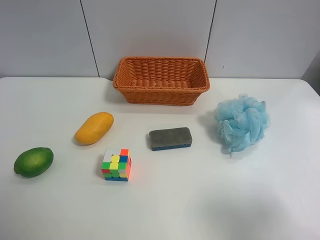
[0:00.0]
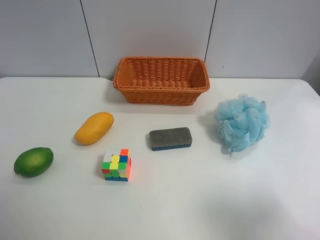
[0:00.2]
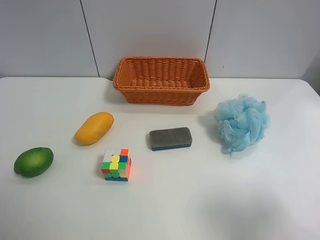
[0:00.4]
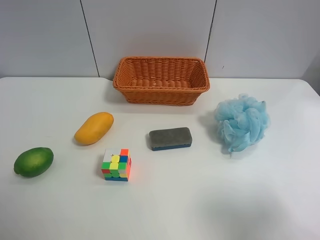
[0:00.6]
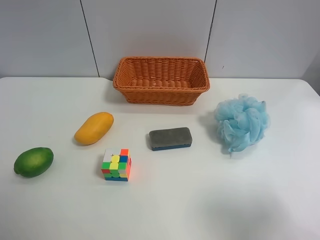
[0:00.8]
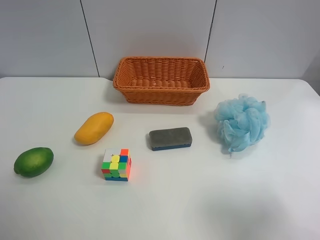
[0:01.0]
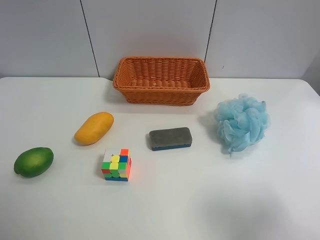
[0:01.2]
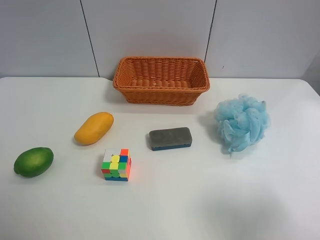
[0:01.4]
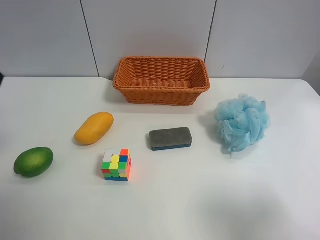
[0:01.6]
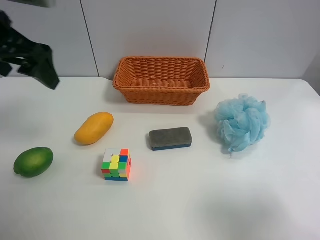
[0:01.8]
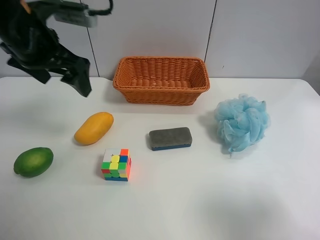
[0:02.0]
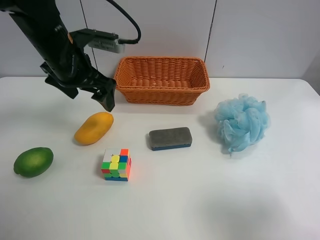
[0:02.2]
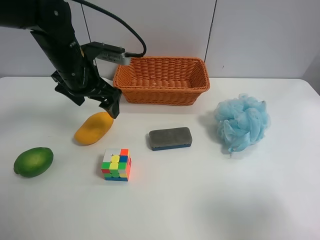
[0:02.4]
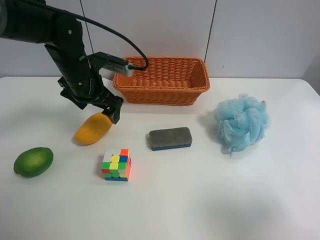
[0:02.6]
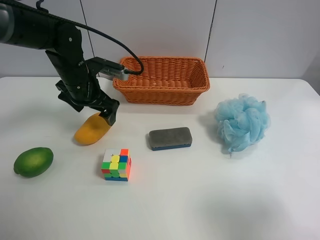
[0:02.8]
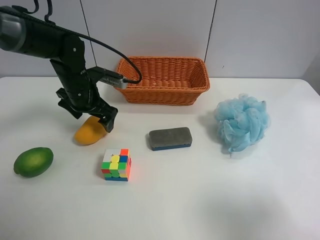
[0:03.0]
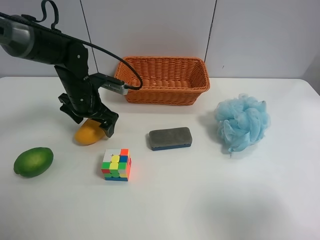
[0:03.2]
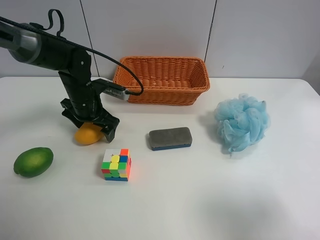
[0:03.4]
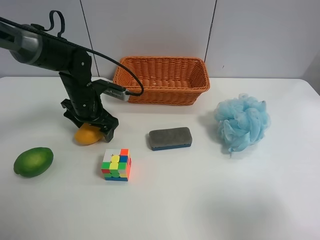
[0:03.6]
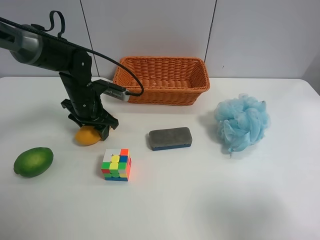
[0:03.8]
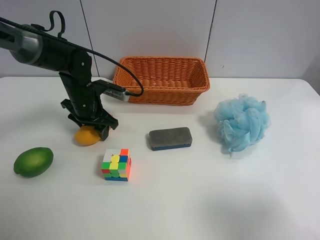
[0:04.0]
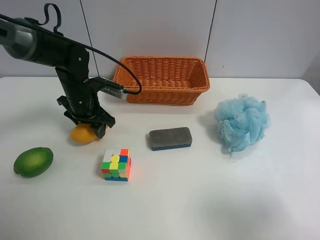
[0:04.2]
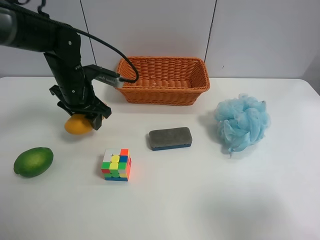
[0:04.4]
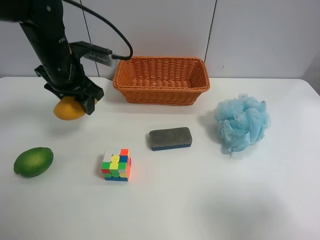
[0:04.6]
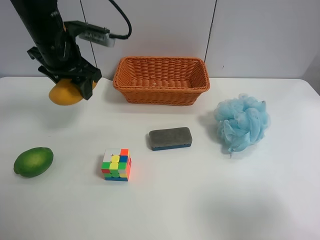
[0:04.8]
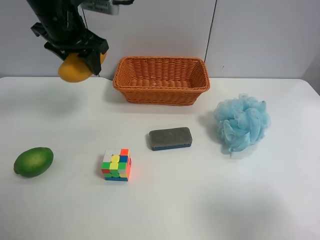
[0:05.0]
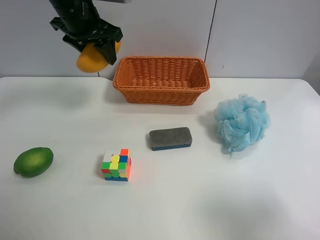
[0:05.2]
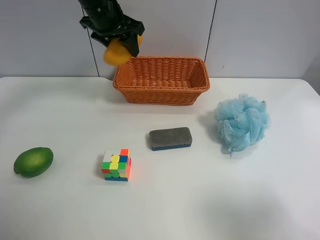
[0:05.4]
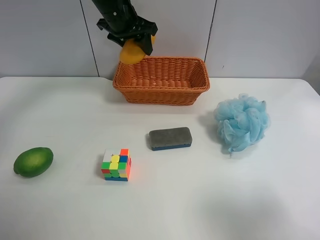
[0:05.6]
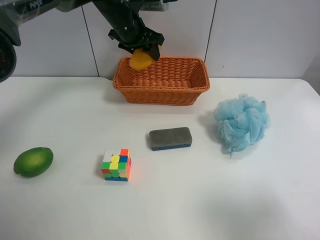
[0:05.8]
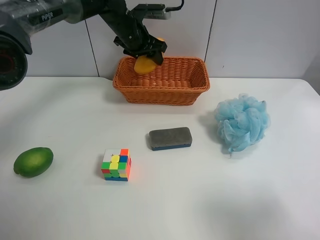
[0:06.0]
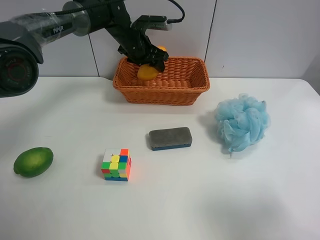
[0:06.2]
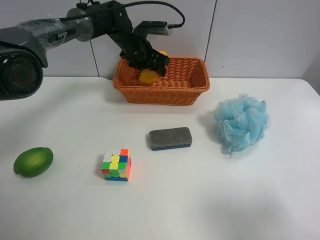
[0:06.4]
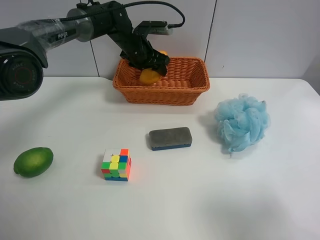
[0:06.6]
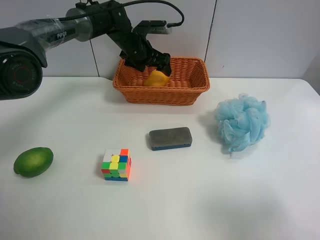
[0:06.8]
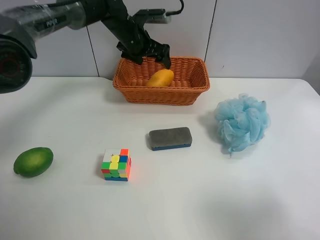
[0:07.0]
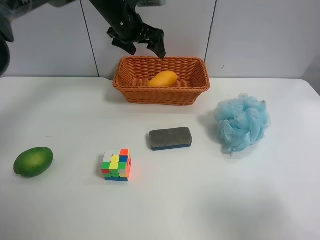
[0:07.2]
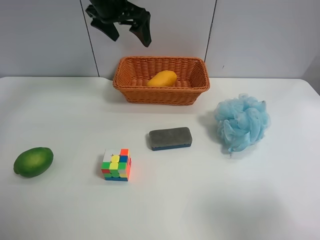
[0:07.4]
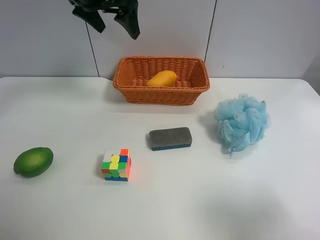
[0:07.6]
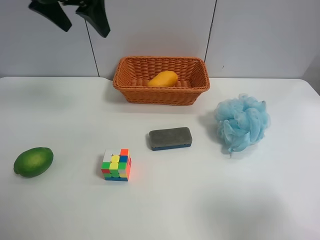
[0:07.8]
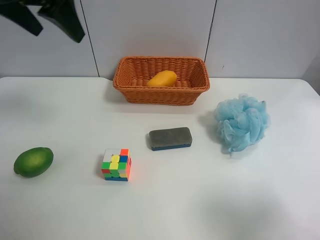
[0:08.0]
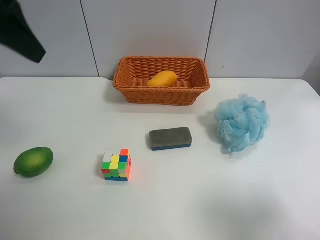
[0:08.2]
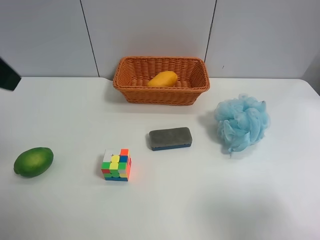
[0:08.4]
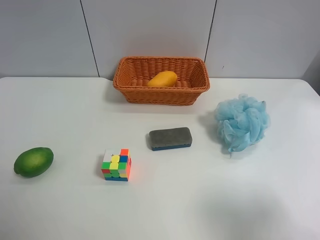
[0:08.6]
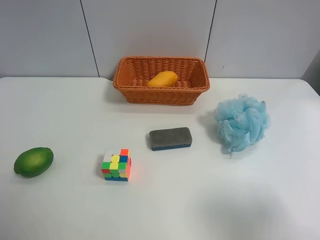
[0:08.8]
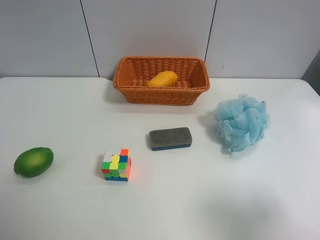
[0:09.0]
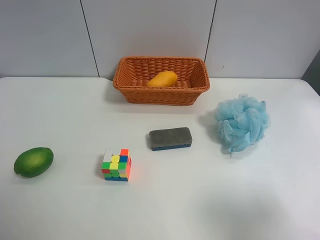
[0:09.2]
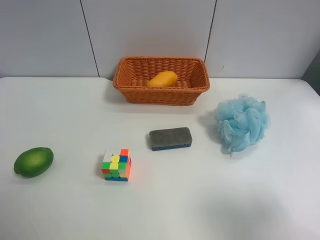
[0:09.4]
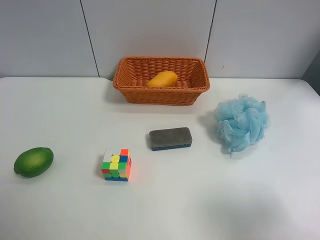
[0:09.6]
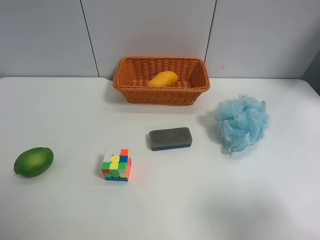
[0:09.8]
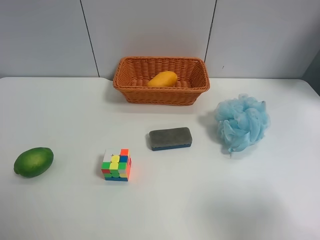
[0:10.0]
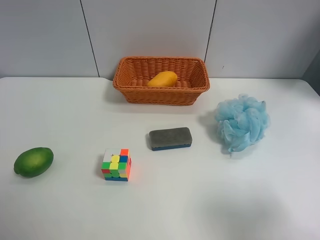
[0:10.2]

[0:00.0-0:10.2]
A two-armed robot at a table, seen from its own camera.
Task of the whole recording: Randomly grab green lemon or mangoes from the table and put them in a basket.
Step, 0:00.0 to 0:03.8: Grasp the mango with the left gripper.
Step, 0:04.0 to 0:07.2: Place the mango into the basket with the left gripper.
0:01.4 to 0:03.0: The left gripper travels forward, downward and to the right by about 35 cm.
0:03.0 to 0:04.4: The left gripper closes its fingers.
0:04.4 to 0:05.8: The left gripper is displaced forward, upward and to the right by about 20 cm.
0:05.8 to 0:07.2: The left gripper reaches roughly 10 cm downward, then returns, and opens its fingers.
0:07.2 to 0:08.8: The left gripper heads backward and to the left, covering about 50 cm.

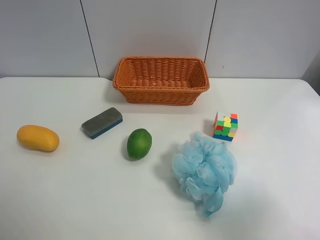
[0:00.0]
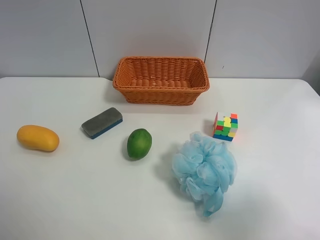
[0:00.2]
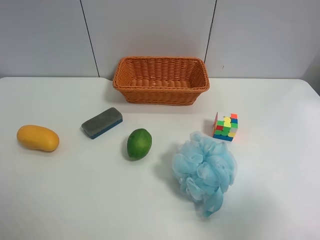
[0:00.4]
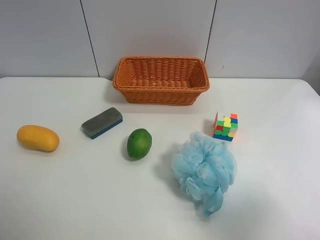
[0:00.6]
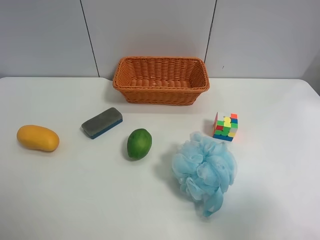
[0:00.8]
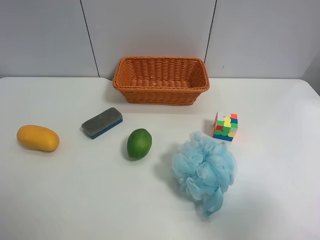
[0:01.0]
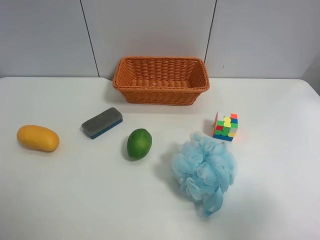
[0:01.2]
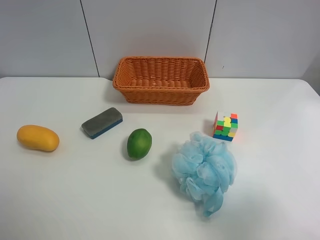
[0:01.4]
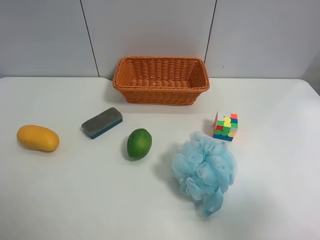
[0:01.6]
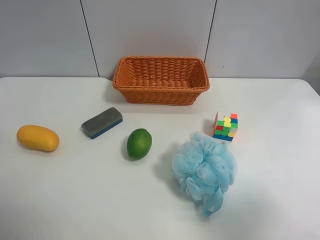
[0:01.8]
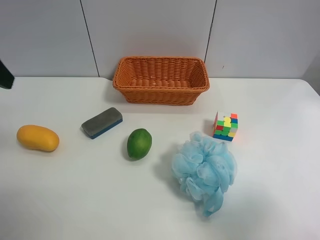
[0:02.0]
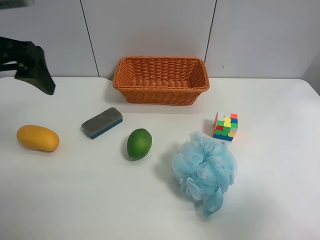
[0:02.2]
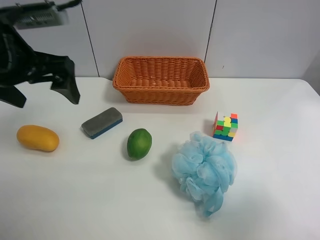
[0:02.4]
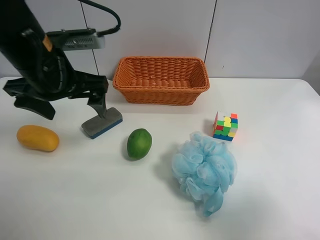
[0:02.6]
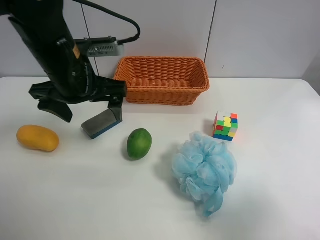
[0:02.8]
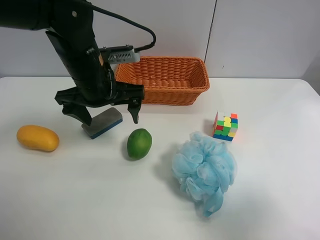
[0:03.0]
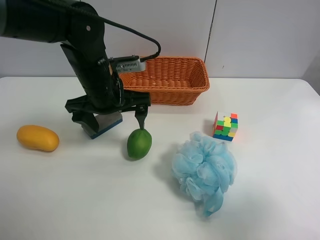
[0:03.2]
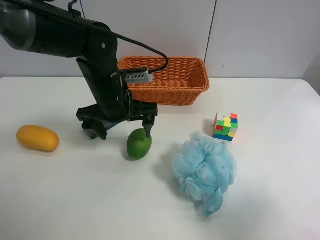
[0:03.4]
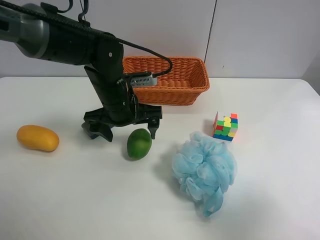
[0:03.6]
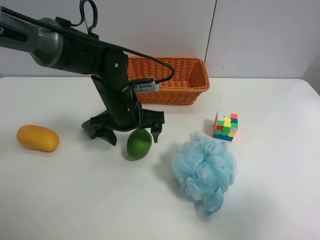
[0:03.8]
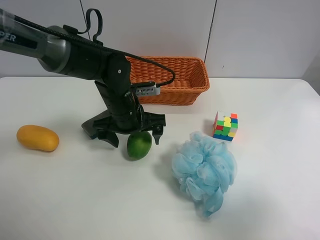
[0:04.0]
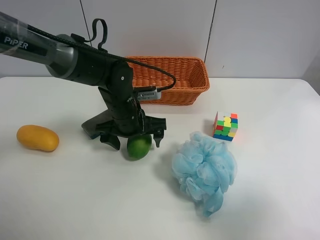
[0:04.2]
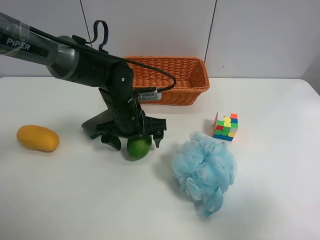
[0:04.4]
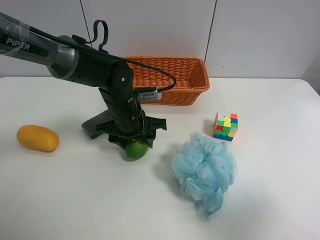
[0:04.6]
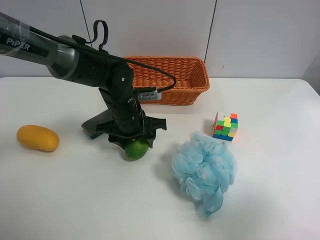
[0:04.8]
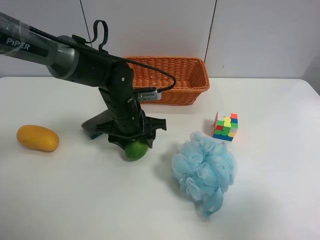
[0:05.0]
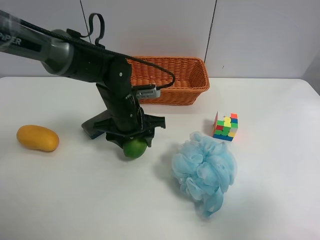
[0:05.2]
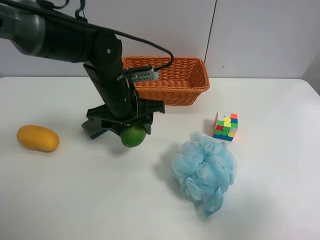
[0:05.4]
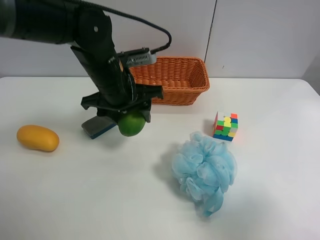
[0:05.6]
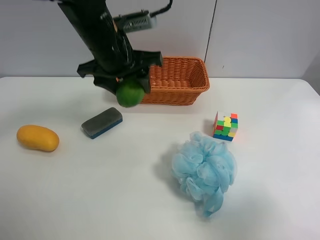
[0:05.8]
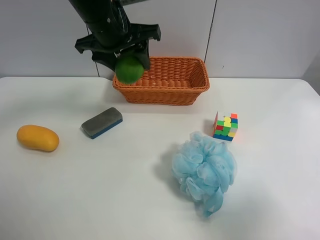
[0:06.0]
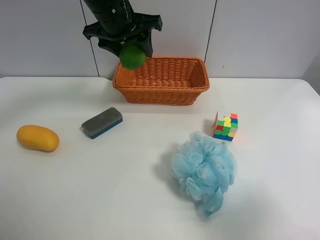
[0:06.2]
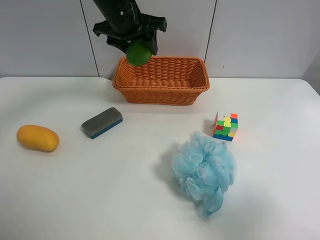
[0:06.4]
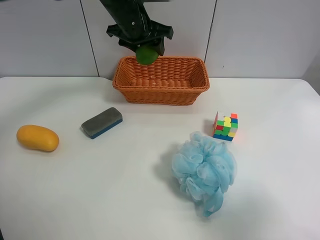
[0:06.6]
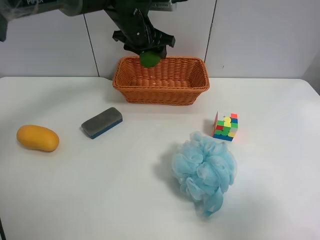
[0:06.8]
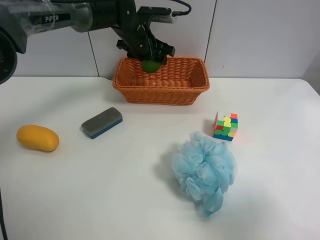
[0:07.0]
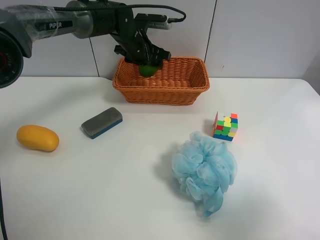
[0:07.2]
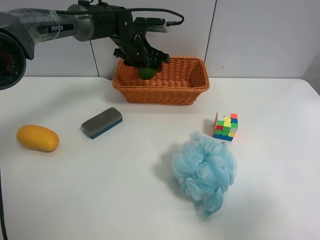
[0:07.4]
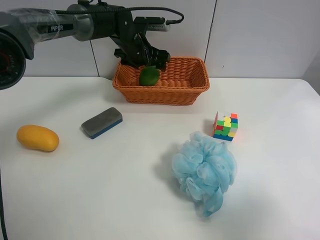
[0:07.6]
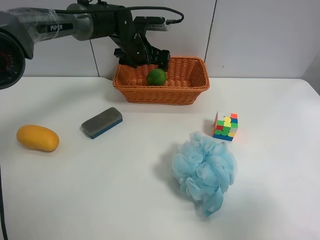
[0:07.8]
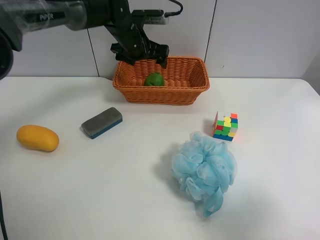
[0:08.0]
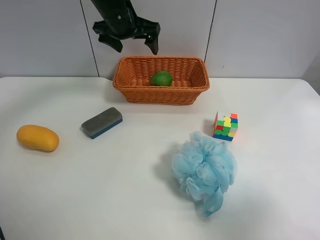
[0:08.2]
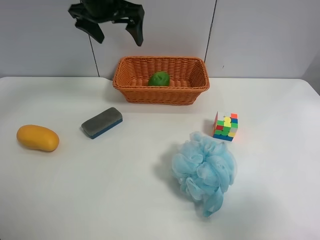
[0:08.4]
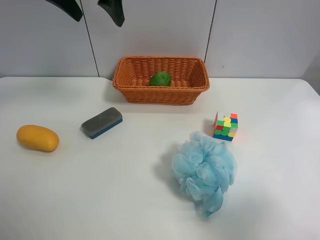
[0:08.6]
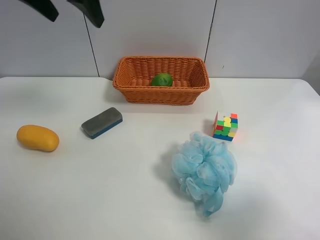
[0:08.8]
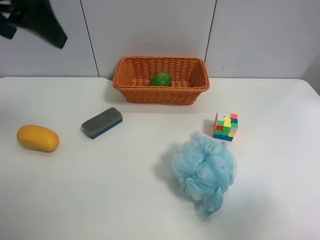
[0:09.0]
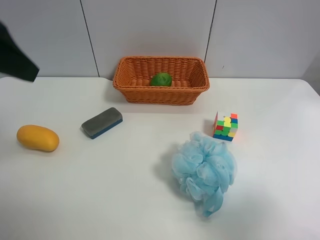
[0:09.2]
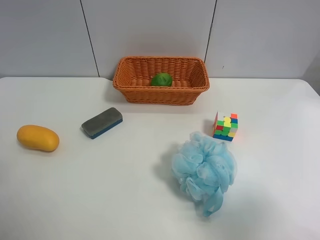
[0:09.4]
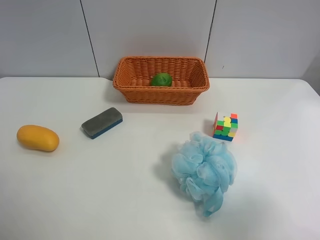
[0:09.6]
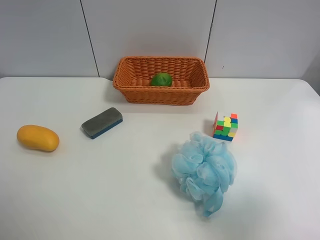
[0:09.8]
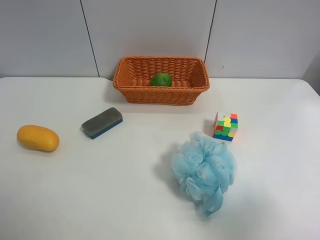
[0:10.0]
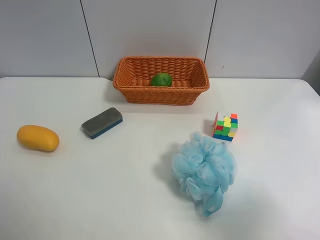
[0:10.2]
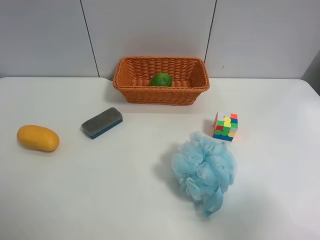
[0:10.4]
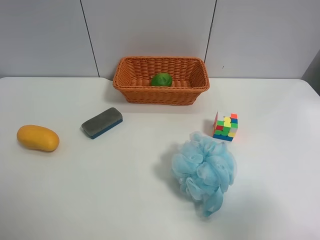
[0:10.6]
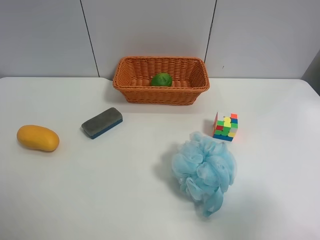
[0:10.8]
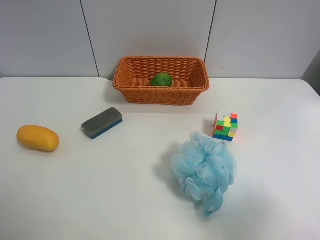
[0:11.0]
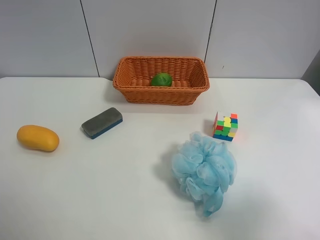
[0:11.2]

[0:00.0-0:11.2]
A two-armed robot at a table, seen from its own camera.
Task of the whole recording: Randomly grab green lemon or mangoes from the table and put them in a basket.
Step, 0:00.0 to 0:04.8: Grasp the Lemon with the left gripper.
Step, 0:05.0 to 0:08.2: Place the Lemon into the basket with the left gripper.
0:01.6 to 0:03.2: The left gripper moves to the right, forward and downward, about 35 cm.
0:03.2 to 0:04.8: The left gripper goes approximately 10 cm downward, and closes up.
0:04.8 to 0:06.4: The left gripper heads upward and forward, covering some 20 cm.
0:06.4 to 0:08.0: The left gripper shifts some 10 cm downward and forward, and opens up.
0:08.0 to 0:09.6: The left gripper travels backward and to the left by about 50 cm.
